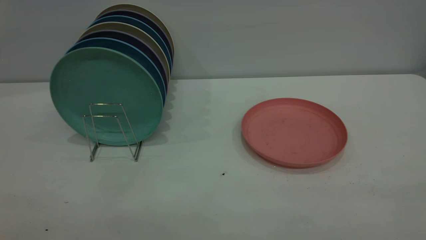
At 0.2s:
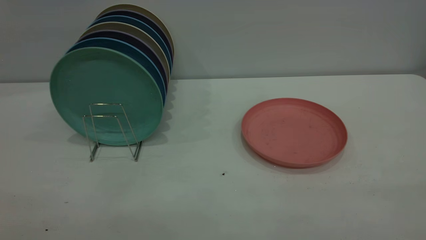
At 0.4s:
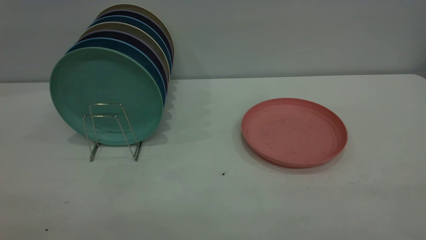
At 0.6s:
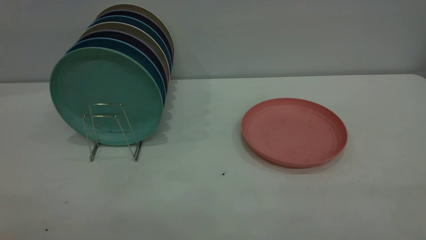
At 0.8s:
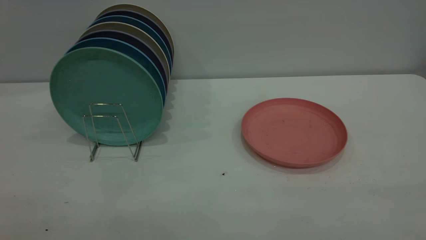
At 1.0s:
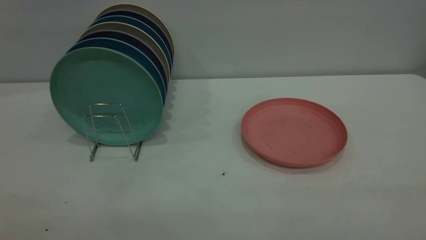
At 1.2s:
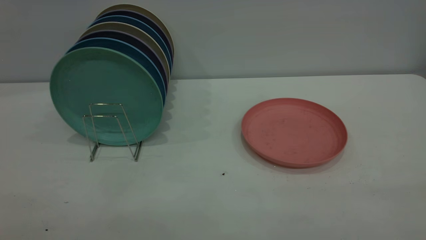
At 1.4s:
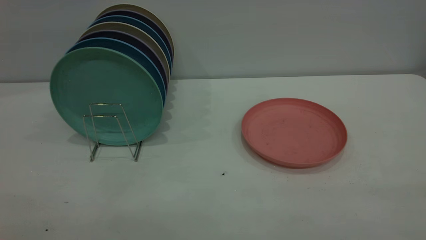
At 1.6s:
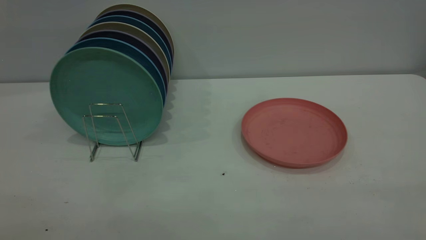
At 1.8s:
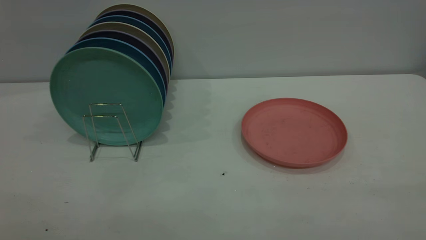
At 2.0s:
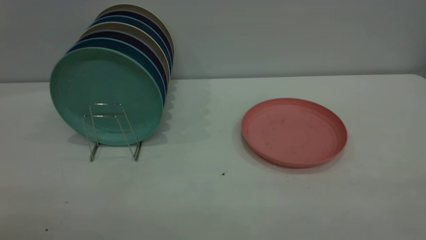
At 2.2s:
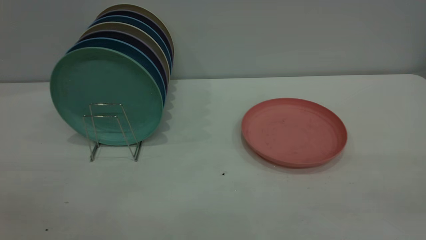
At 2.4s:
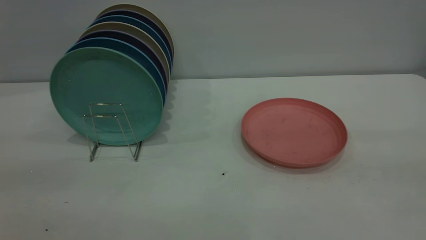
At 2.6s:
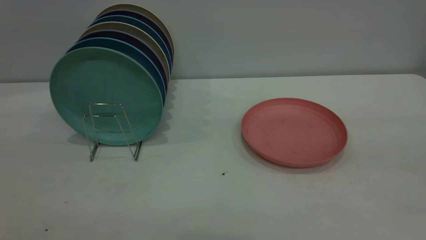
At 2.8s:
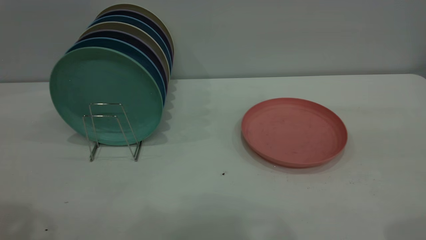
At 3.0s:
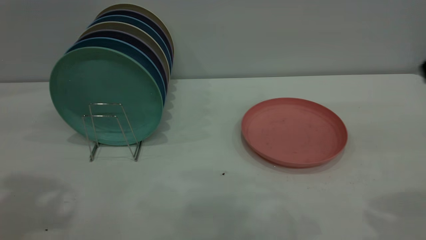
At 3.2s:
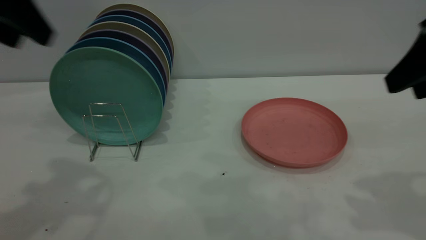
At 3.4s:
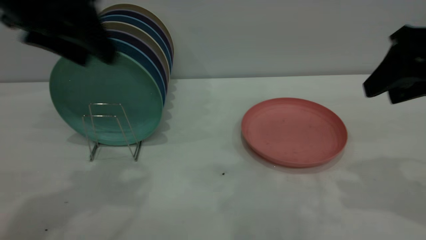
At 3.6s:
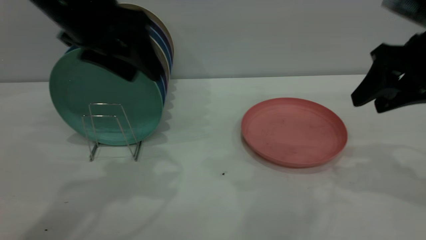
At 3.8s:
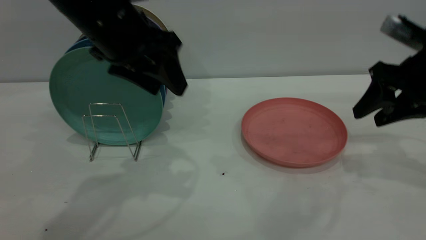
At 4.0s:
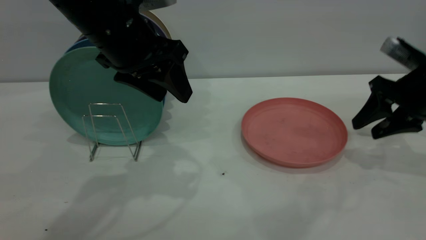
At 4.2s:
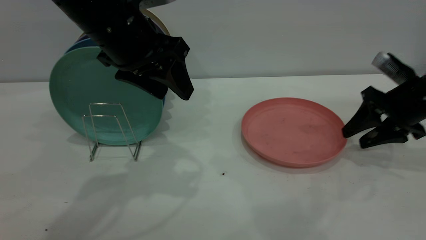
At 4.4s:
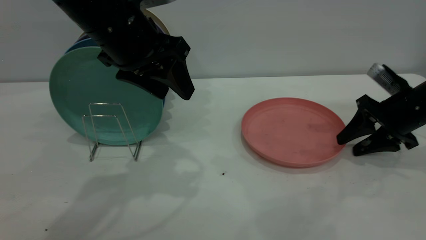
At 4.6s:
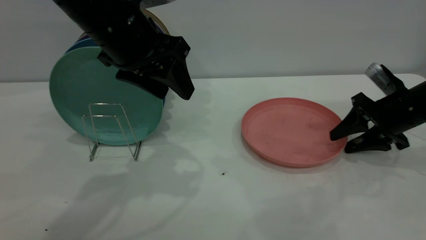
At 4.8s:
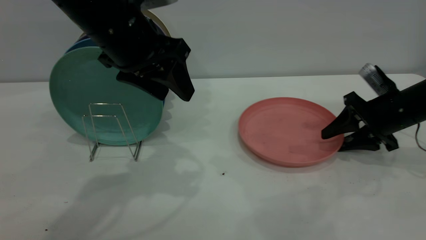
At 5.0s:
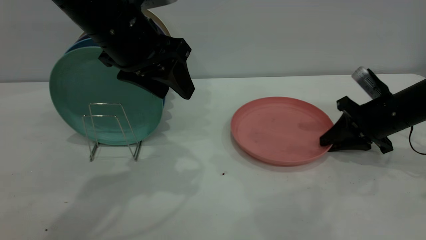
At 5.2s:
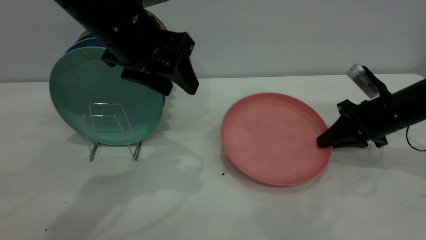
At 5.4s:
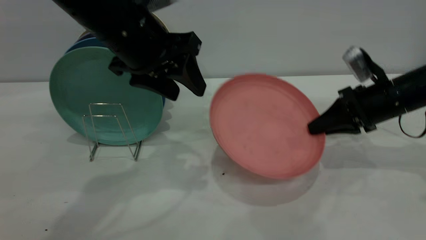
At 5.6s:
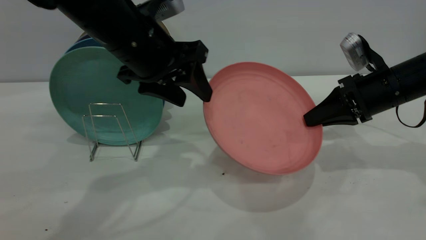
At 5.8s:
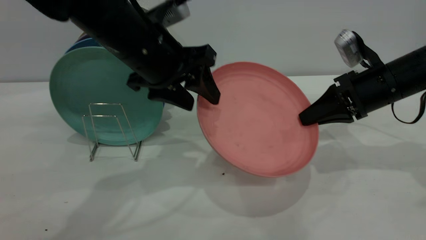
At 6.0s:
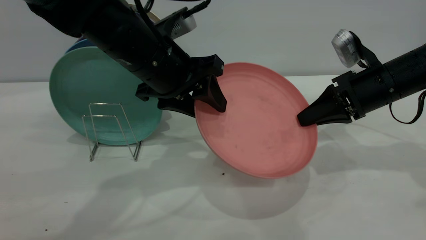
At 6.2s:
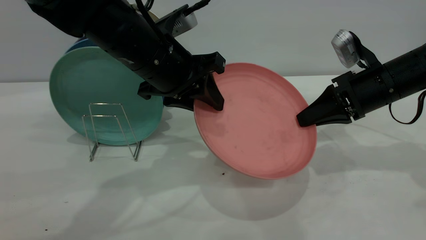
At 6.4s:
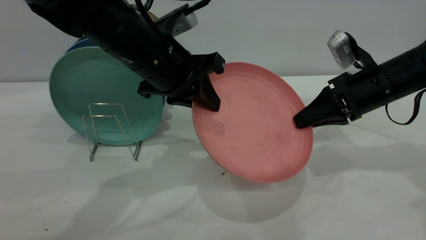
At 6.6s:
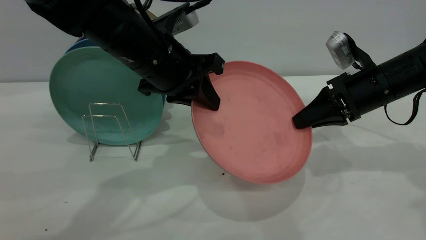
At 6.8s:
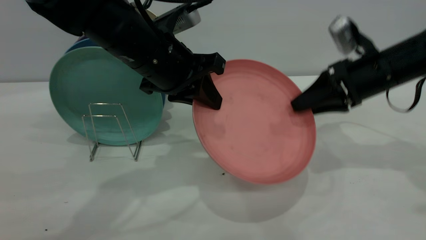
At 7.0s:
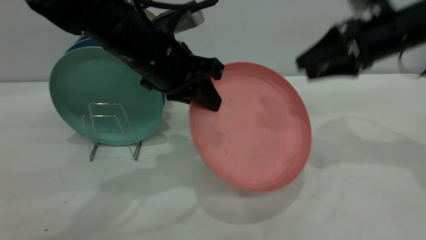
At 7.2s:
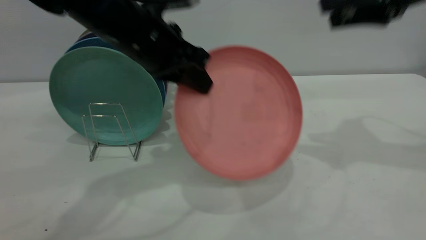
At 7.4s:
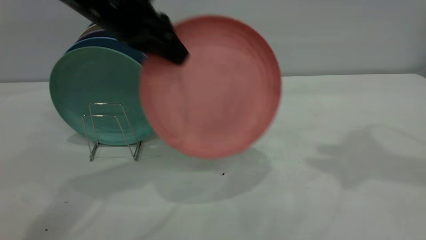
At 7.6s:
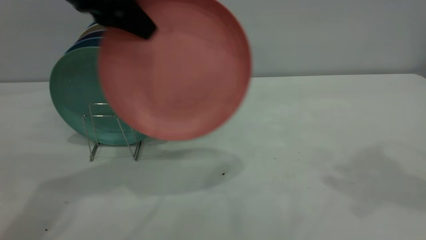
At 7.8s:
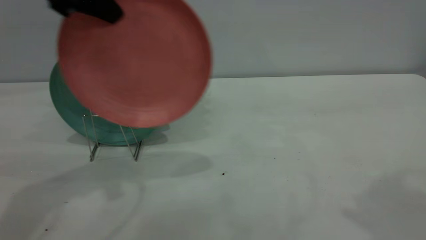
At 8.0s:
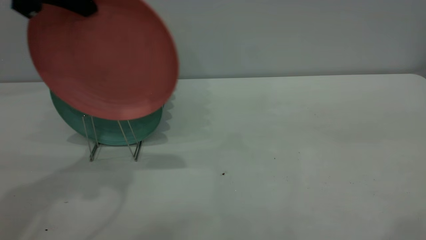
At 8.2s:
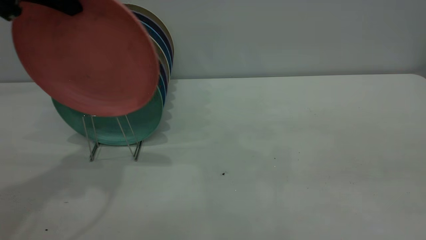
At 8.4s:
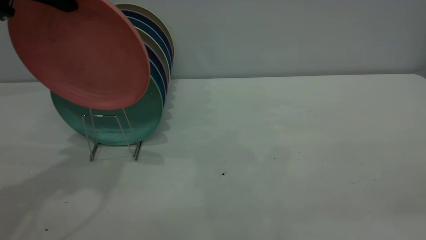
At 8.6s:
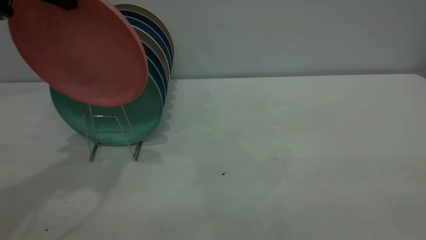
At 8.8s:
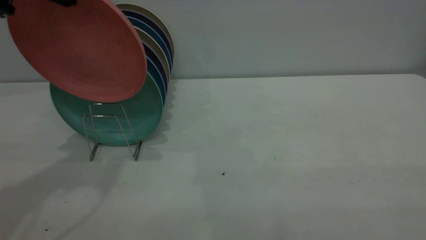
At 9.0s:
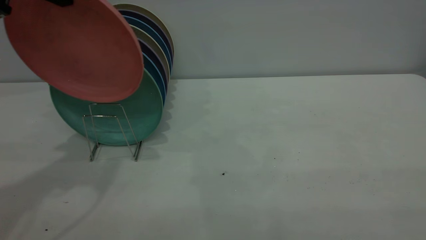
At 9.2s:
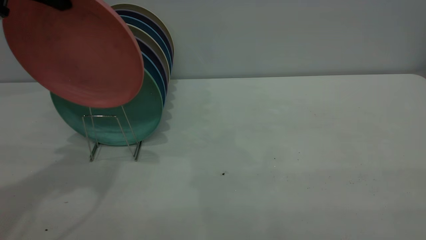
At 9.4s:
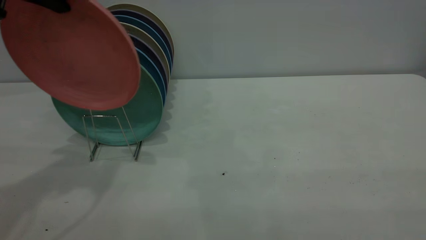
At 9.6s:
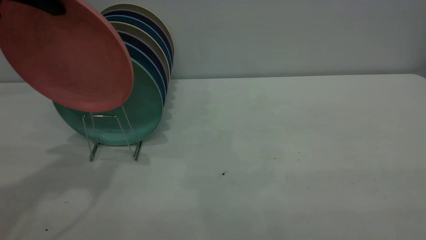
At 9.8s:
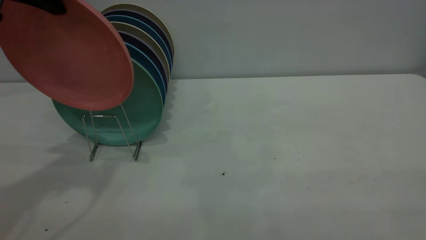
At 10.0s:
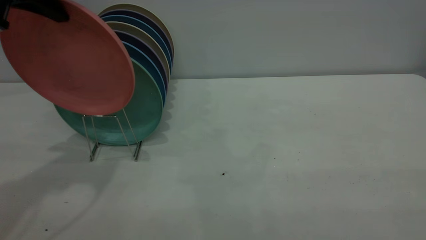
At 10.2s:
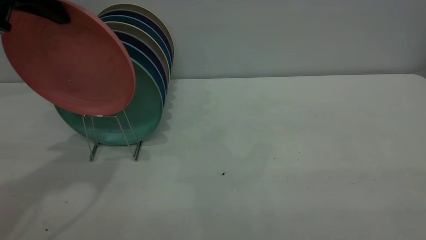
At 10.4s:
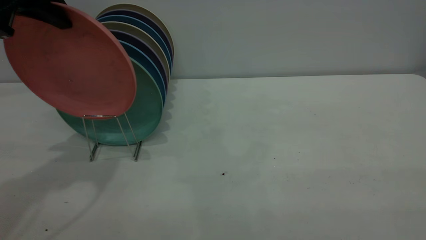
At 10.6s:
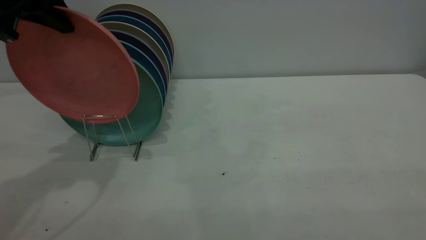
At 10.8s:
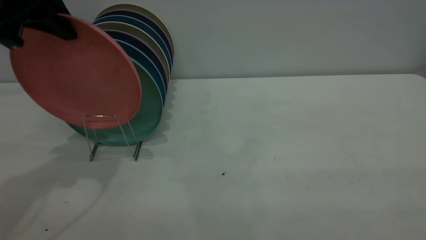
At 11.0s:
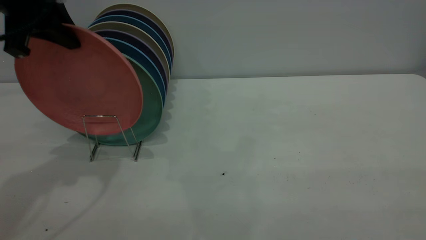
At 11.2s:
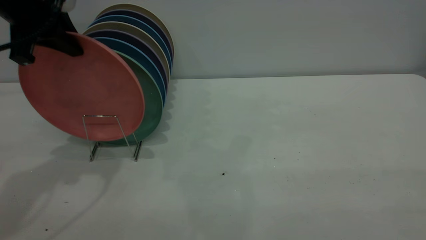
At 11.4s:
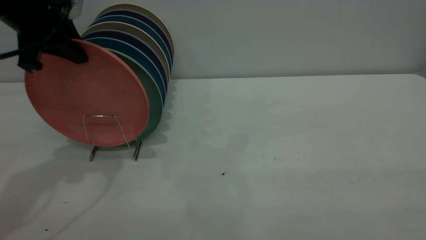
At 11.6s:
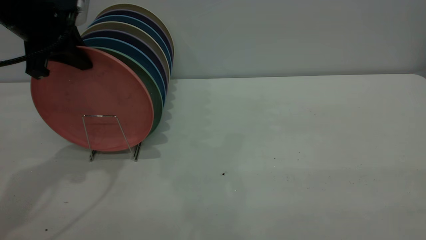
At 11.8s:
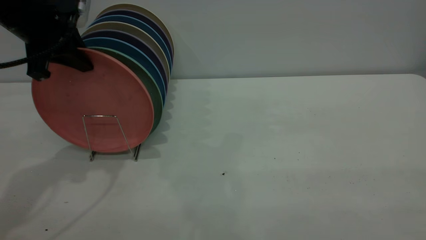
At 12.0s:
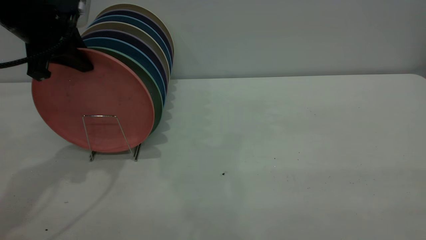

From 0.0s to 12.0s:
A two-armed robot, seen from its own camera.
Task of the whole recording: the right gripper grasp the pink plate, the right gripper pass the pink plate to the left gripper, and the left gripper place the pink plate on the plate rack.
Step, from 0.0s to 5.2s: Pick up the plate with the right gripper.
Step, from 5.6s to 6.8s: Pass the plate from the right gripper to the left gripper.
From 0.0s to 1.6s: Neither gripper changes place.
From 3.0s to 4.4s: The left gripper heads to the right, downward and forward, covering roughly 20 cm. The right gripper goes approximately 30 cm downward and forward.
From 4.4s to 6.0s: The left gripper goes approximately 5 cm downward. Meanwhile the right gripper travels to the left by some 5 cm, and closes up.
From 6.0s to 7.6s: The right gripper travels upward by roughly 30 cm, and opens up, while the left gripper shifts roughly 15 cm upward and to the left, and closes up.
From 7.6s to 9.0s: The left gripper travels to the left by roughly 5 cm. The right gripper heads backward, covering about 30 cm.
From 9.0s to 10.4s: The grippers stay close to where they were, moving slightly.
From 10.4s to 12.0s: The left gripper moves downward, about 5 cm.

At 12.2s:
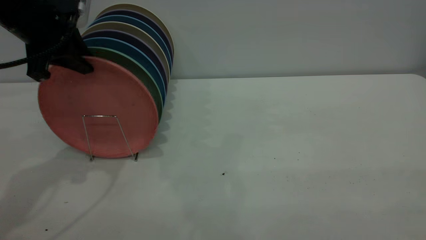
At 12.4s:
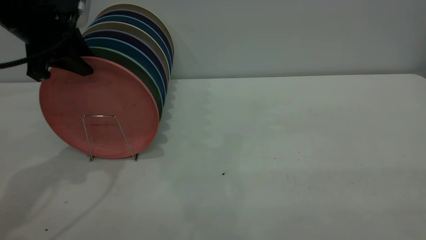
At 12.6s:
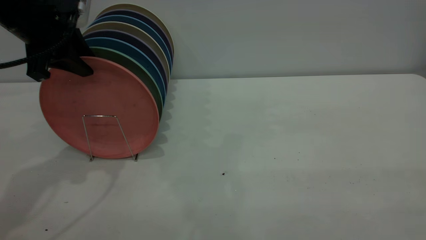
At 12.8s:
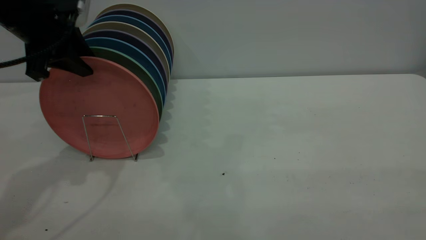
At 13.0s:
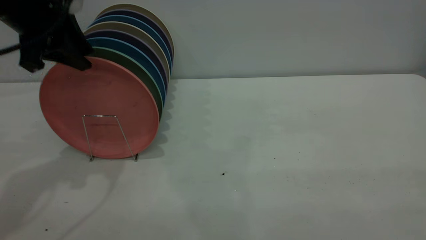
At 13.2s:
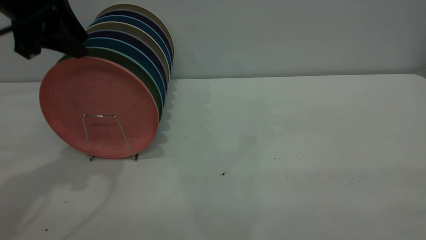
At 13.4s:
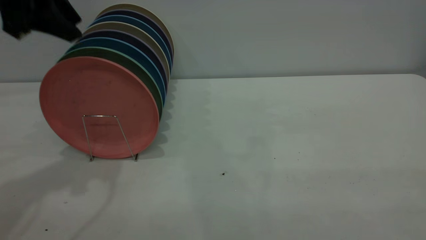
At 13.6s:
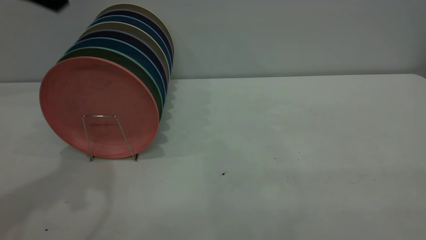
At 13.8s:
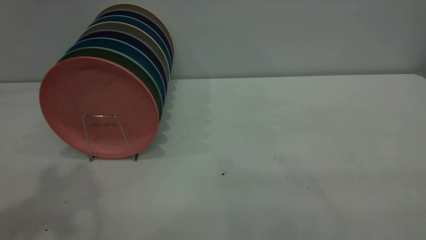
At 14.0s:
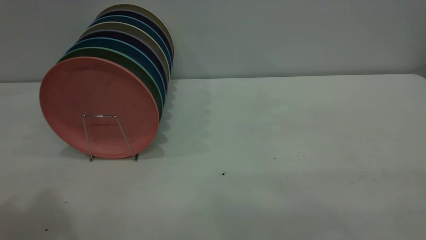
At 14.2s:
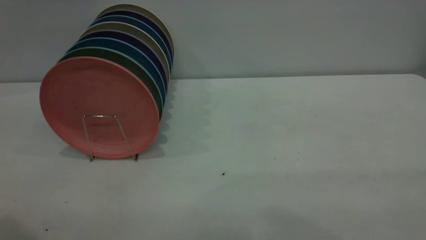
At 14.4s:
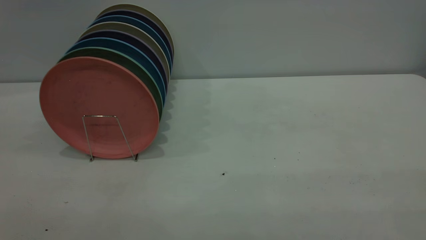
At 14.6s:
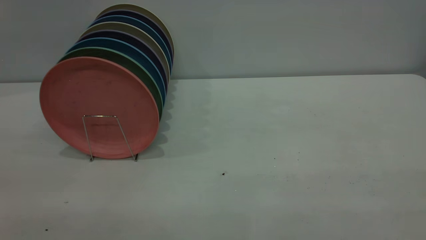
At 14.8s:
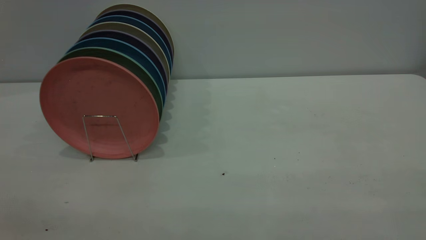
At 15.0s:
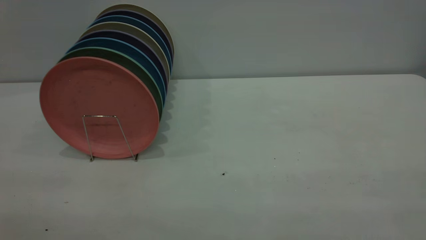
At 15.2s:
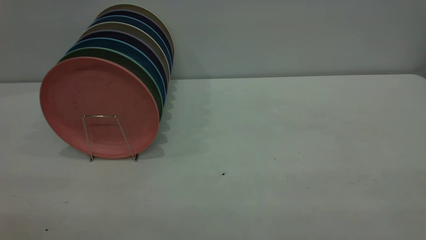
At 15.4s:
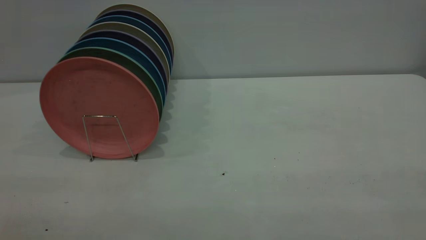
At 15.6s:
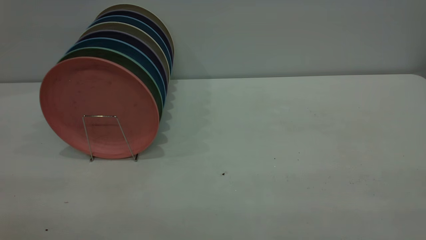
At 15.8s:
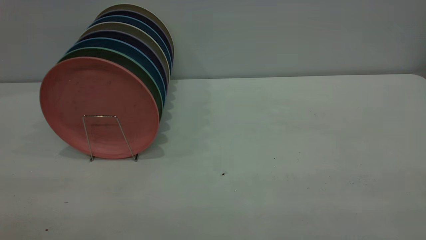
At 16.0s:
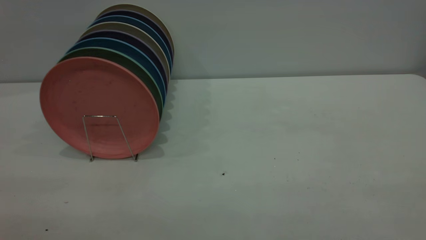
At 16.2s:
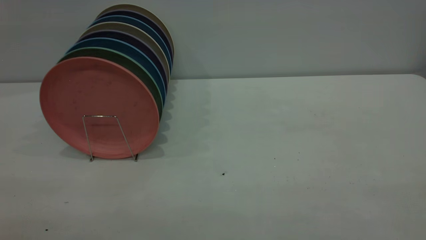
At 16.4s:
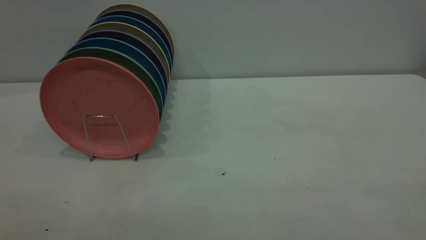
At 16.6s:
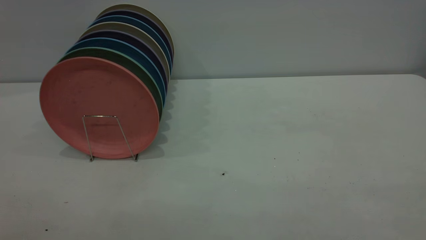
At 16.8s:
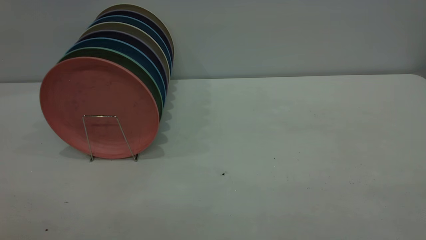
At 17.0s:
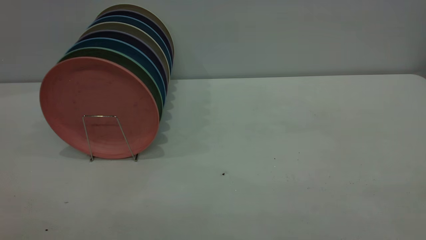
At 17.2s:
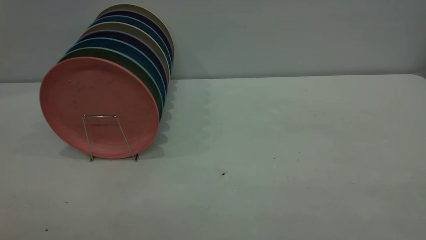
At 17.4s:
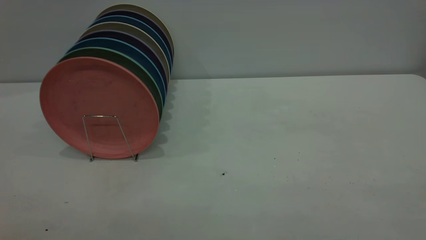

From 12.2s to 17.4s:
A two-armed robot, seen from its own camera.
Task of the whole recording: the right gripper grasp the pink plate, the right gripper pass the pink plate to the left gripper, and the left gripper place the pink plate on the plate rack.
From 12.2s to 14.0s: The left gripper heads upward and backward, covering about 25 cm.
